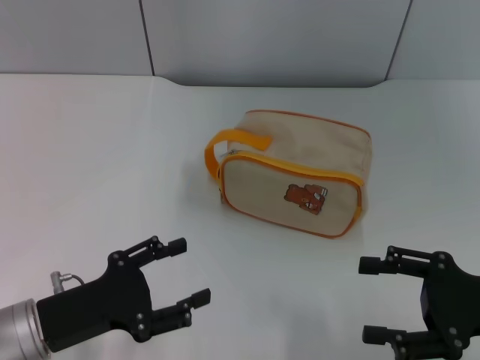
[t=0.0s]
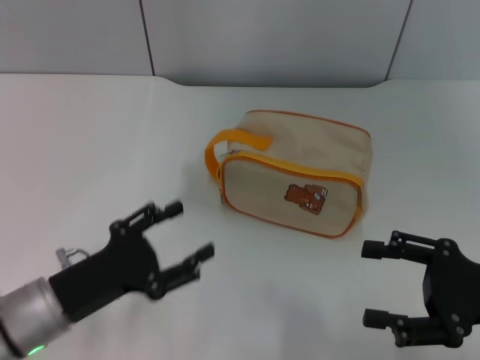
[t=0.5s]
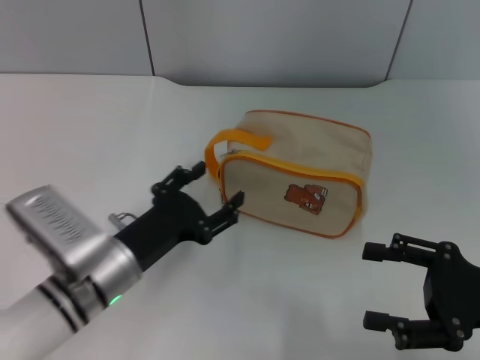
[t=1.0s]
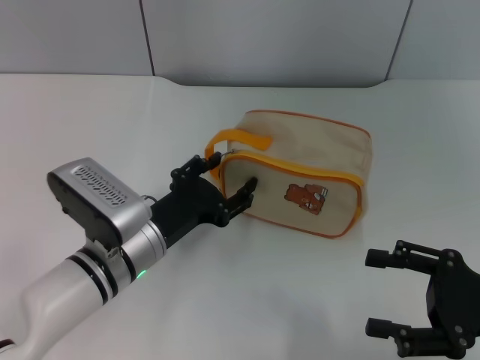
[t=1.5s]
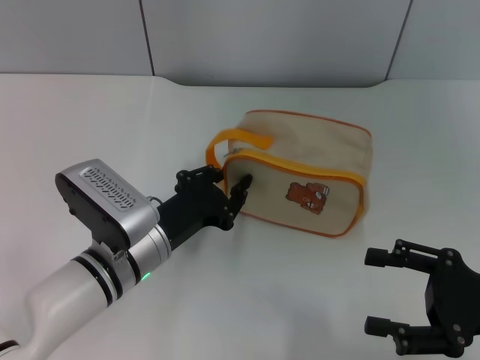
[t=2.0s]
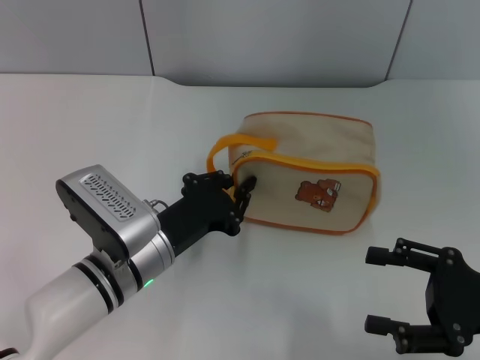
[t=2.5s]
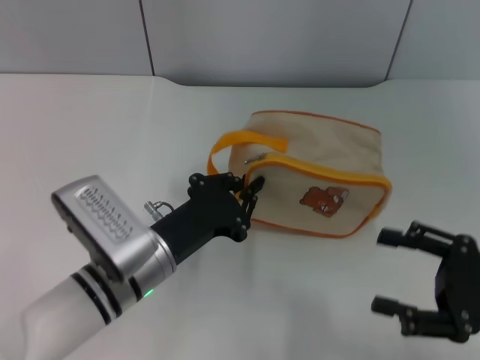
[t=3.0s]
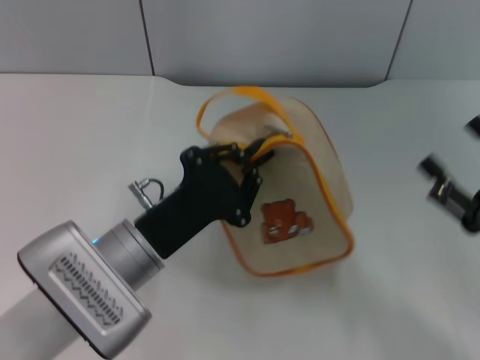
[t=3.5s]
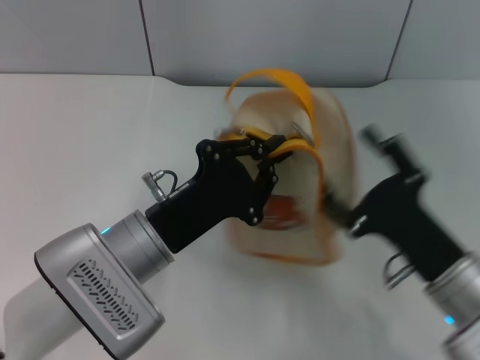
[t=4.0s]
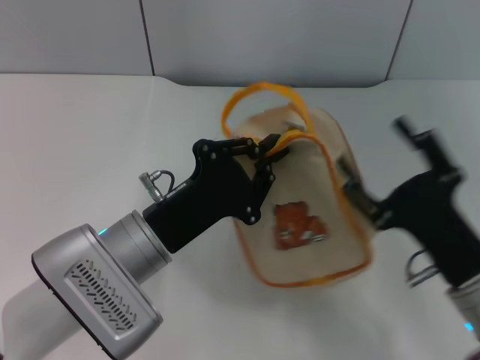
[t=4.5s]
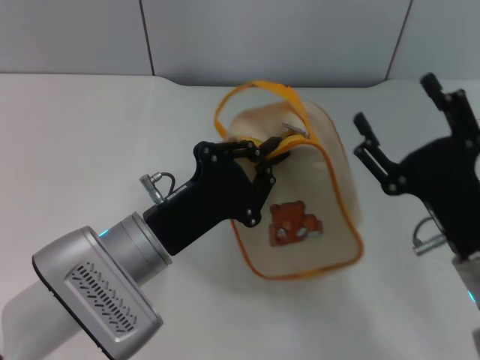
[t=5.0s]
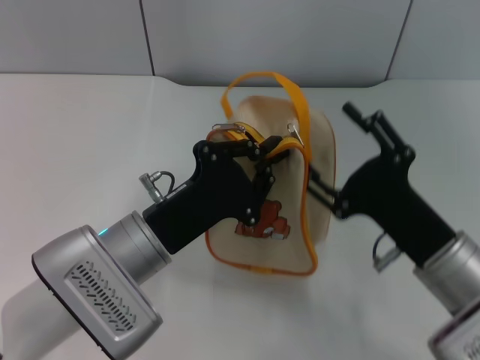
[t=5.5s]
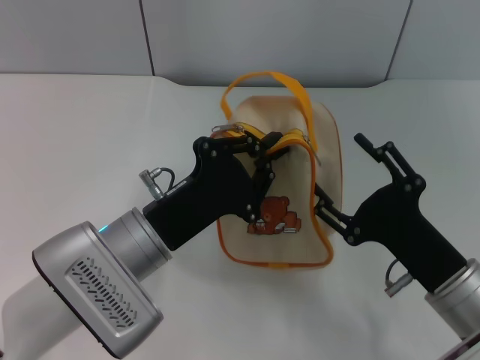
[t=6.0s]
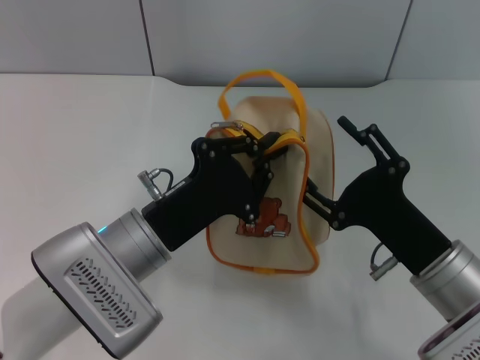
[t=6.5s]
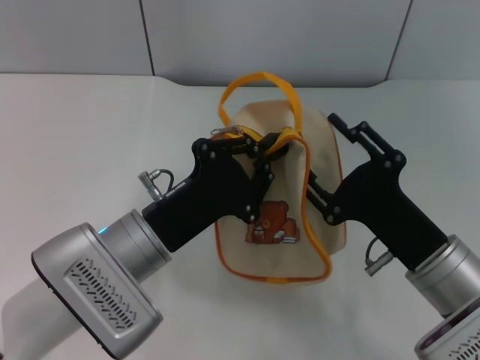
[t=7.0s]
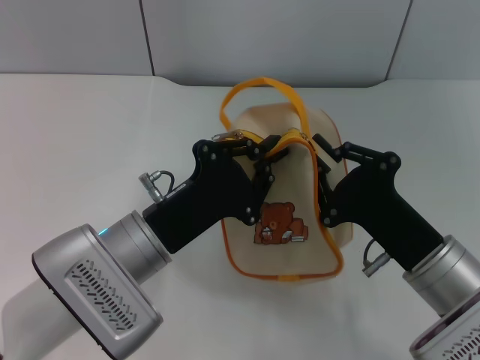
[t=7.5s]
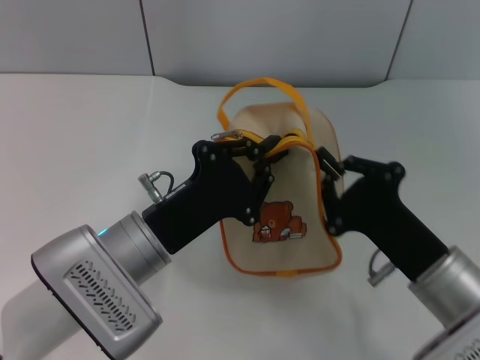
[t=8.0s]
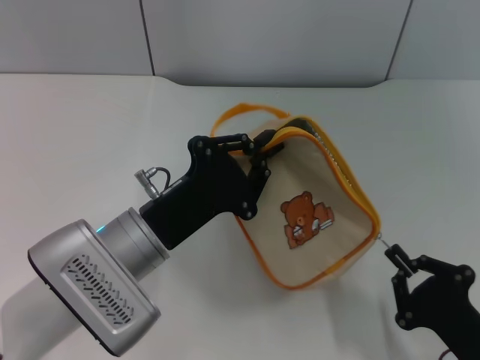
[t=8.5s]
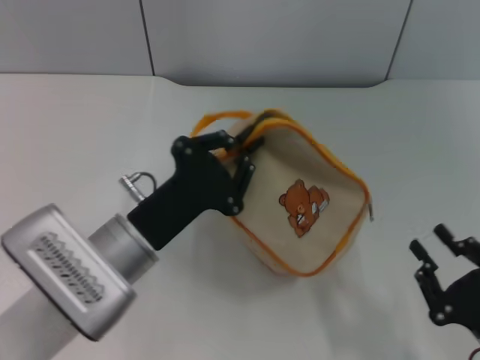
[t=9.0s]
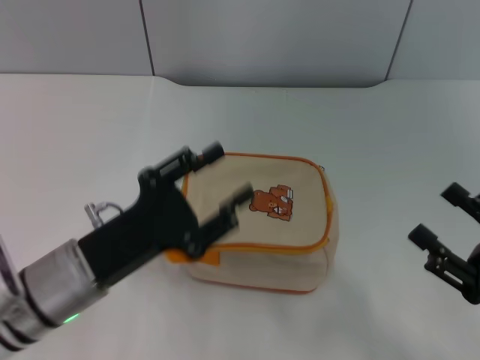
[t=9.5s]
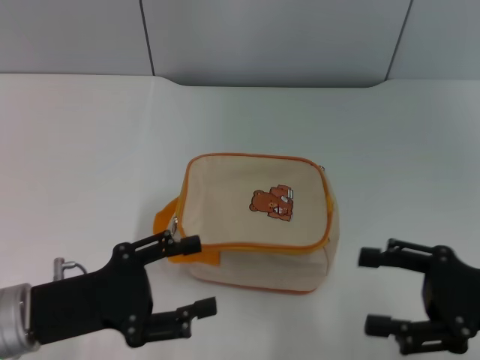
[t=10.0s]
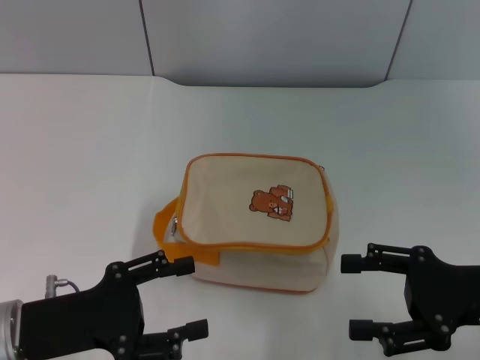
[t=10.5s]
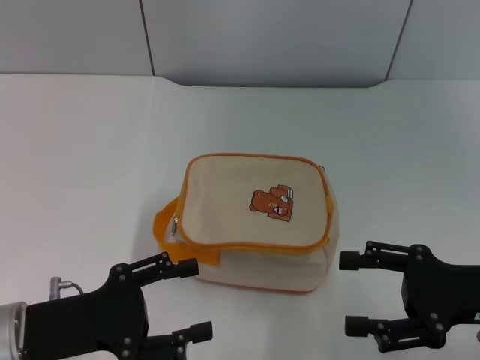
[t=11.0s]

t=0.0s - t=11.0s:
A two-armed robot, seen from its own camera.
Step, t=0.0s - t=3.5s: Pick up the bag with left gripper.
Step, t=4.0s - t=8.5s: Unzip the zipper of bag with right gripper.
Step, t=9.0s - t=9.5s: Place the bag on the table with left gripper.
t=0.0s - t=2.0s: The left gripper moves to the right and forward, about 15 cm, and closes up.
t=2.0s - t=3.5s: The left gripper closes.
t=3.5s - t=5.5s: The right gripper is displaced to the left by some 10 cm.
t=5.5s - t=7.5s: The right gripper closes its fingers.
t=7.5s - t=9.0s: The right gripper moves backward and to the right, approximately 15 cm.
t=9.0s - t=11.0s: The left gripper moves to the left, about 10 cm, and opens up, while the right gripper is displaced forward and upward by about 15 cm, and opens up.

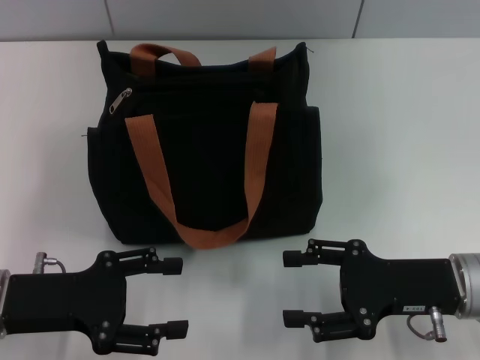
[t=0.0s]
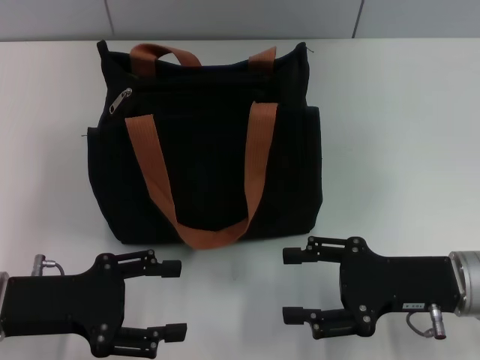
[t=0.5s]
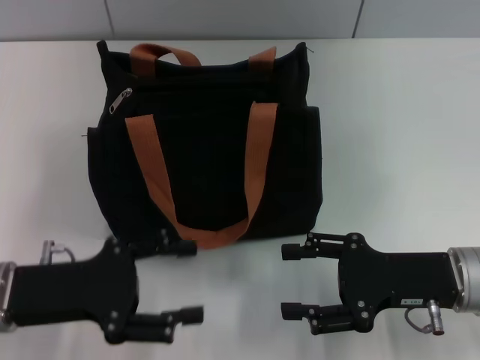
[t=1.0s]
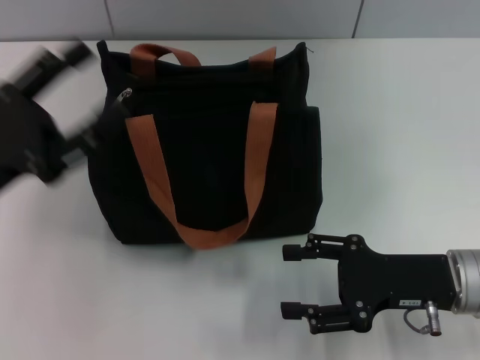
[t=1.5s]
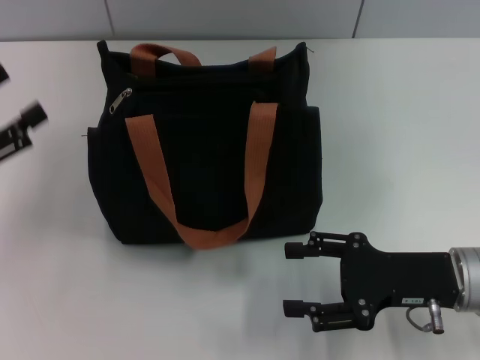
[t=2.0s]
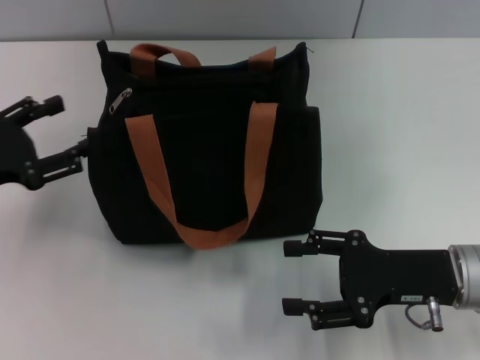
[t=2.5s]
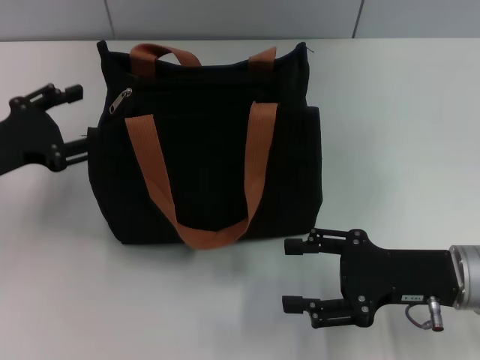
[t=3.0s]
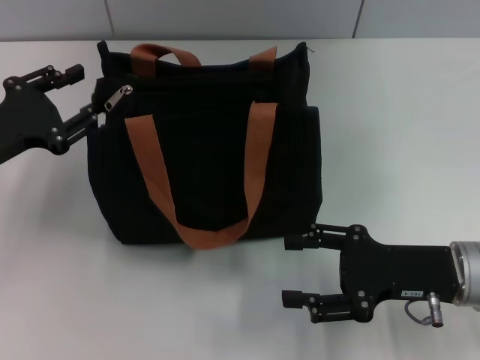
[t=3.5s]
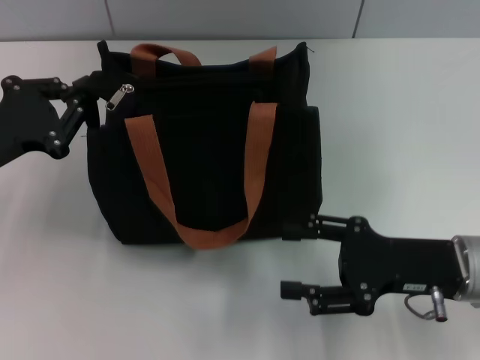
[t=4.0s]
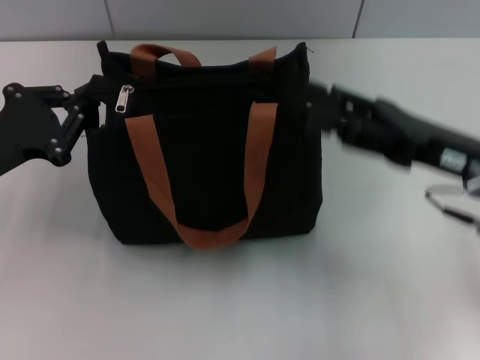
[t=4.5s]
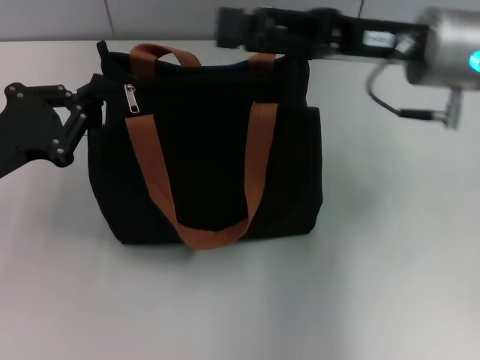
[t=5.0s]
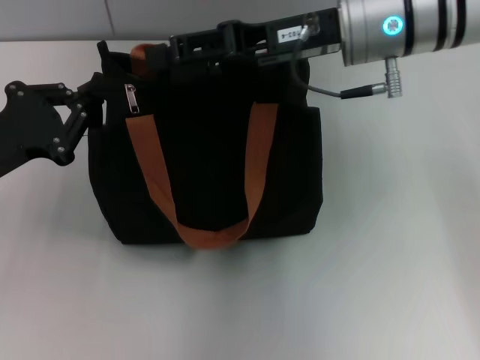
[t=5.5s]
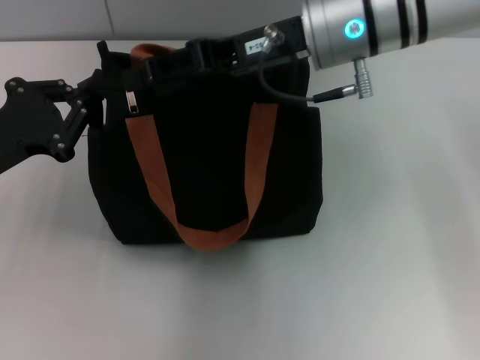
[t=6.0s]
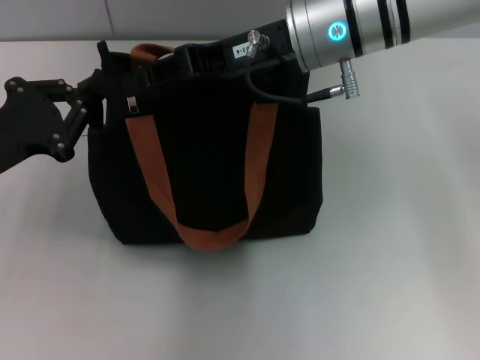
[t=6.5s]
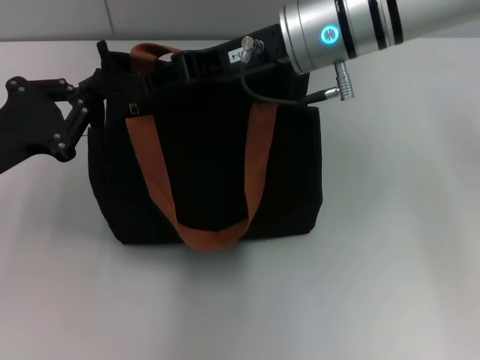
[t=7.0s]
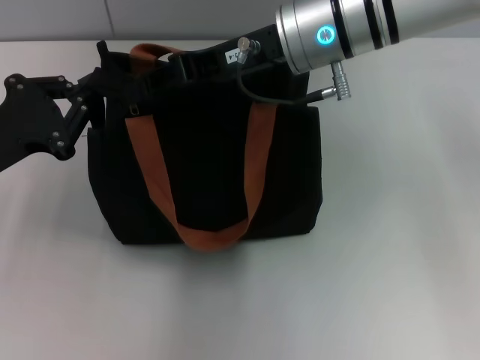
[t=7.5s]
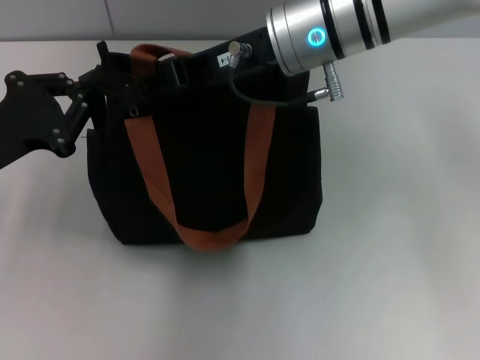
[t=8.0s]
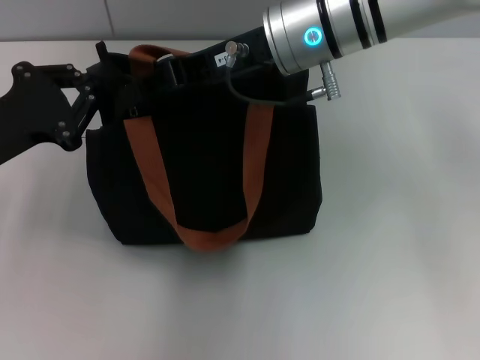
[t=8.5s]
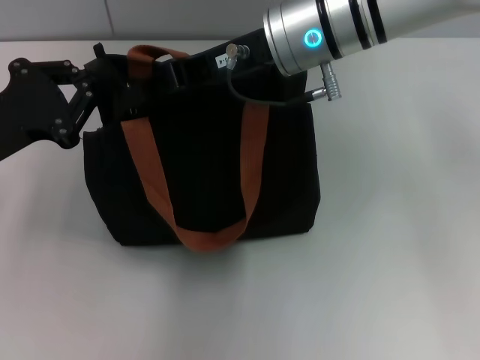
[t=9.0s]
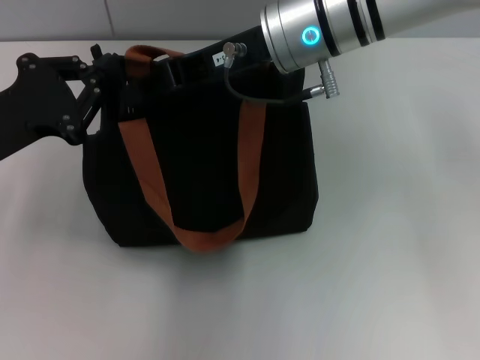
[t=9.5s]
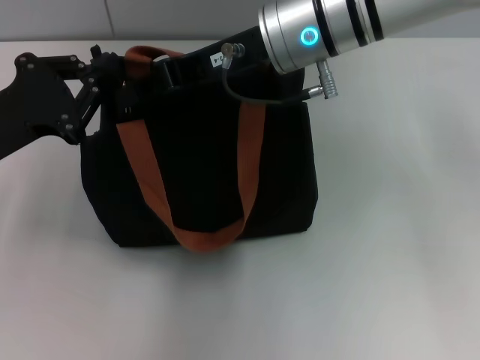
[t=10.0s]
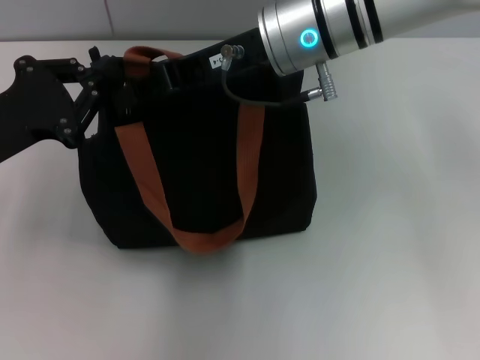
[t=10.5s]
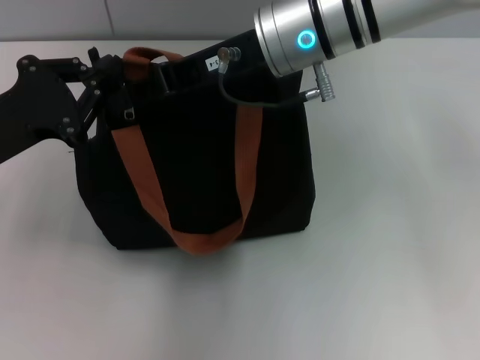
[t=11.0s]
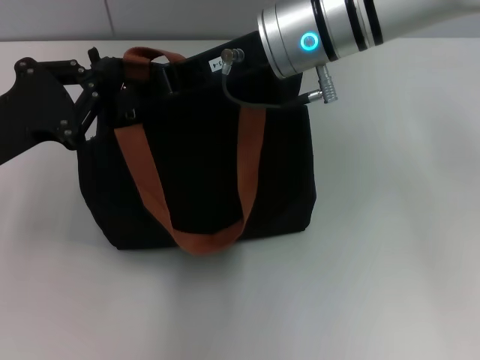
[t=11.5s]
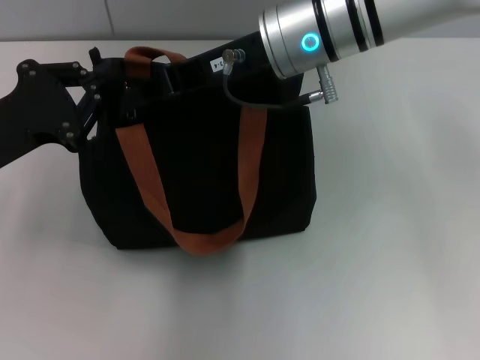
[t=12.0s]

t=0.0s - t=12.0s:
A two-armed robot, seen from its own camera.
t=0.0s - t=2.0s: The left gripper goes approximately 10 cm to the left.
t=2.0s - t=4.0s: The left gripper changes place by some 5 cm, and closes its fingers.
t=4.0s - t=6.0s: The right gripper travels forward, upward and to the left by approximately 25 cm.
t=6.0s - t=8.0s: The right gripper closes.
t=8.0s - t=10.0s: There are only small adjustments of the grippers.
t=10.0s - t=12.0s: Both grippers stay put.

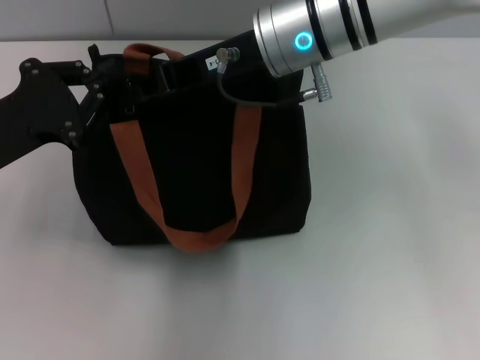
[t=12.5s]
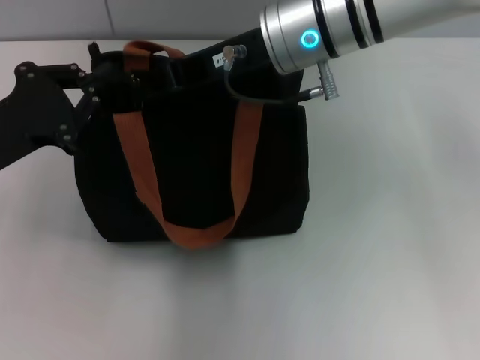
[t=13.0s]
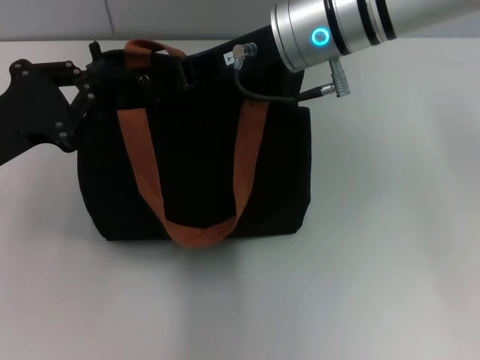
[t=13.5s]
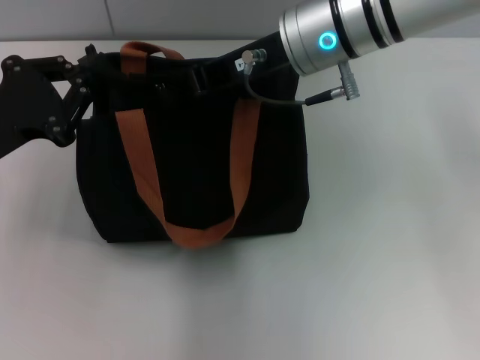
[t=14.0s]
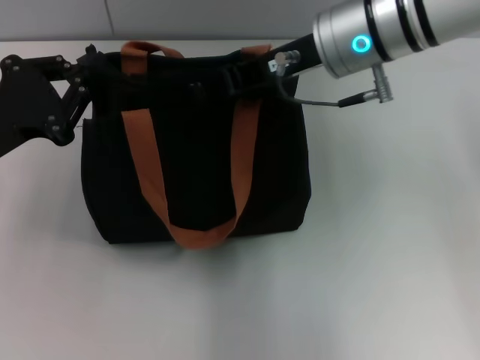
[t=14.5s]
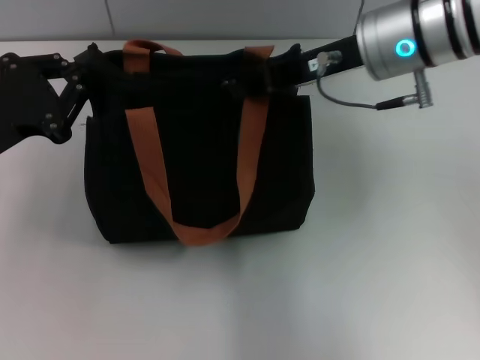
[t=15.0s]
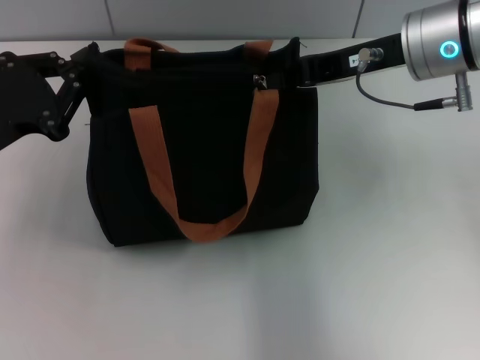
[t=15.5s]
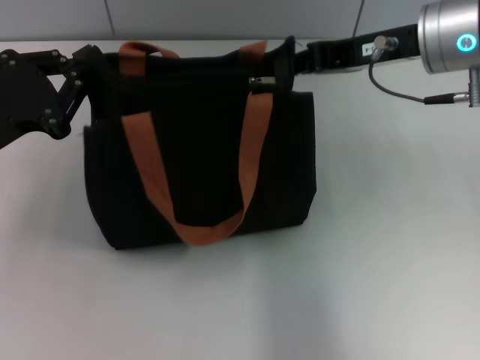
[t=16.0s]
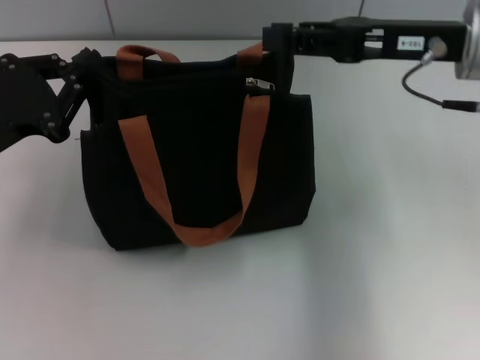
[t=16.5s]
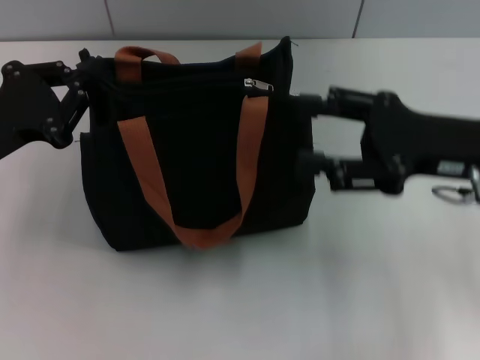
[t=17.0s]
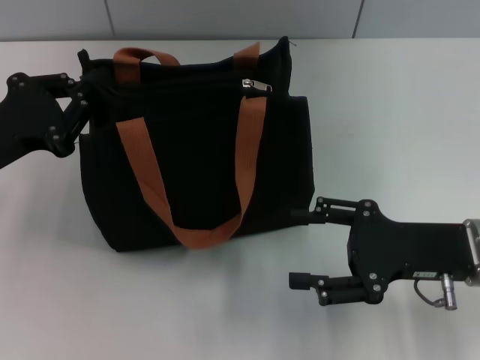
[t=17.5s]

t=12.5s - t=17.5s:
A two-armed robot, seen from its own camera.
Step, t=12.5s - t=16.0s: Pull up the zipper with your right hand.
t=12.5s - t=15.0s: The right gripper goes roughly 10 cm to the right.
t=15.0s - t=17.5s: The right gripper heads backward, downward and to the right, covering approximately 20 cm, and opens up.
